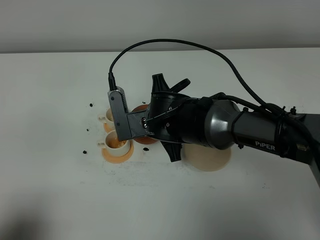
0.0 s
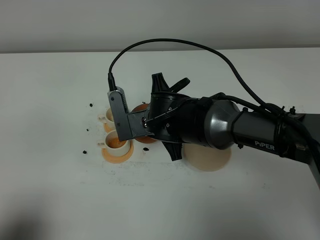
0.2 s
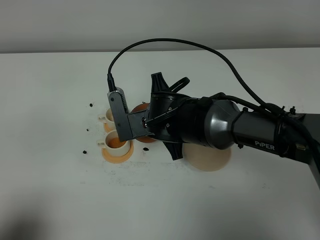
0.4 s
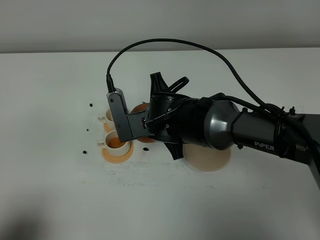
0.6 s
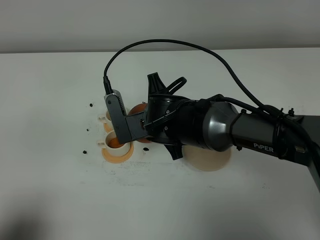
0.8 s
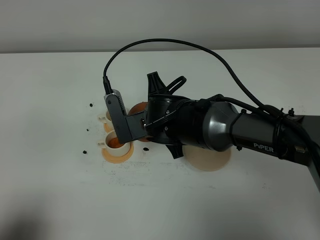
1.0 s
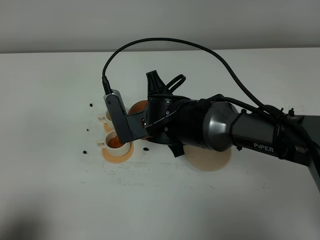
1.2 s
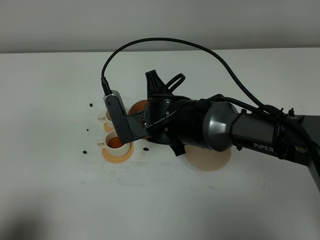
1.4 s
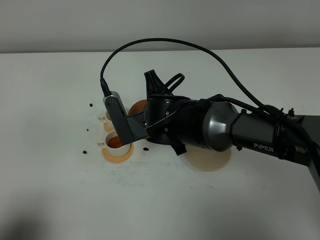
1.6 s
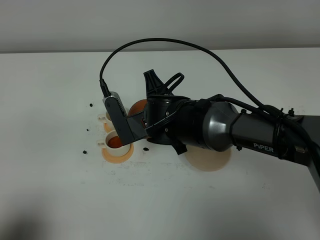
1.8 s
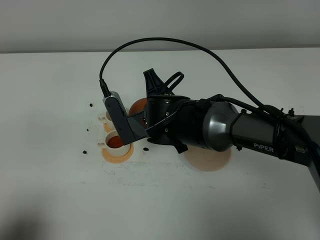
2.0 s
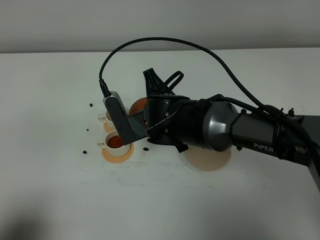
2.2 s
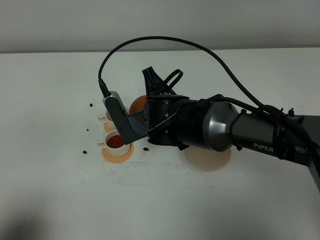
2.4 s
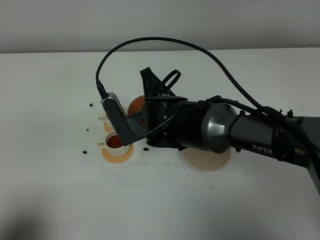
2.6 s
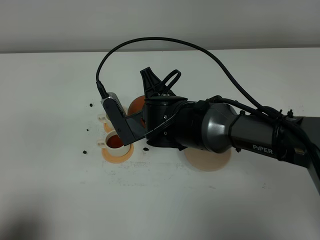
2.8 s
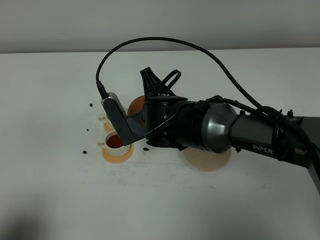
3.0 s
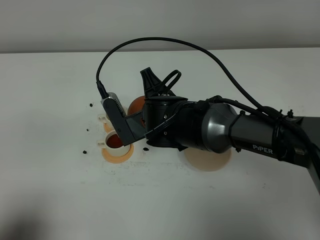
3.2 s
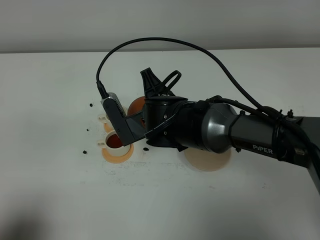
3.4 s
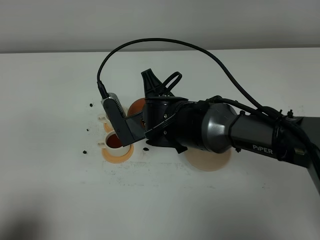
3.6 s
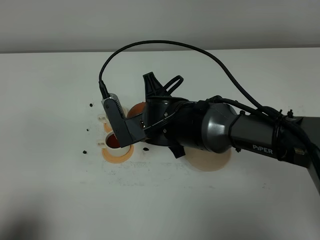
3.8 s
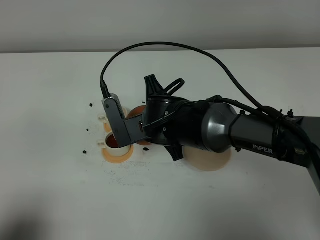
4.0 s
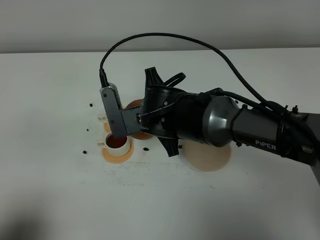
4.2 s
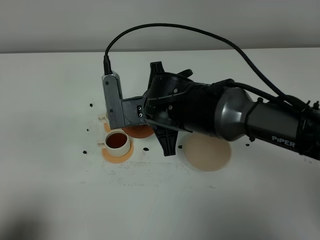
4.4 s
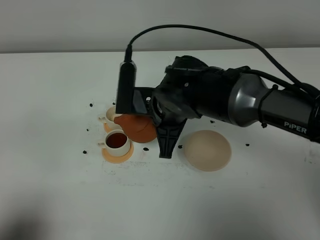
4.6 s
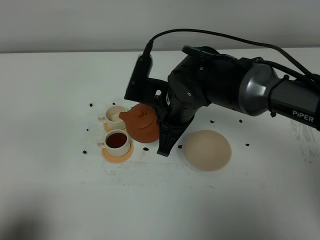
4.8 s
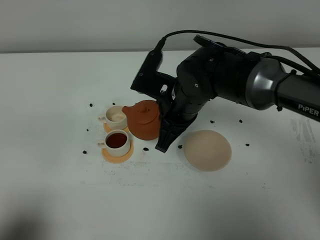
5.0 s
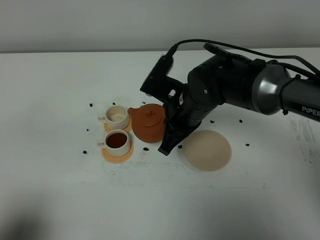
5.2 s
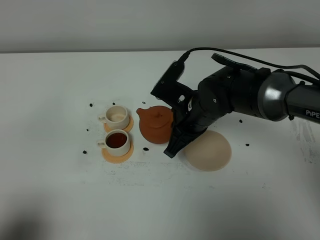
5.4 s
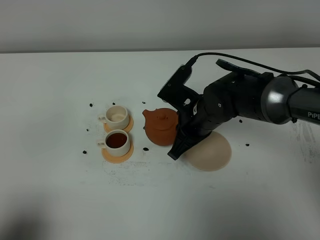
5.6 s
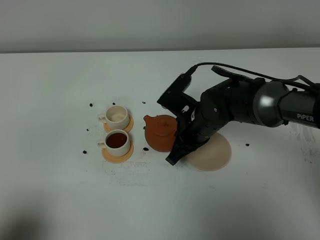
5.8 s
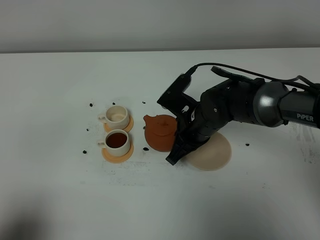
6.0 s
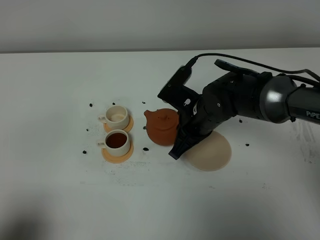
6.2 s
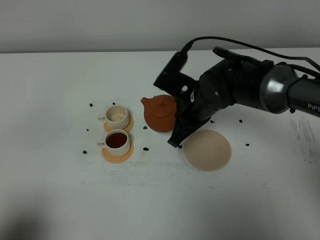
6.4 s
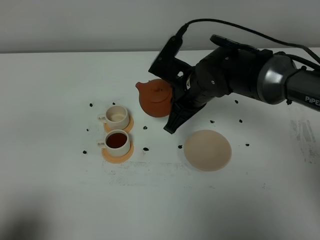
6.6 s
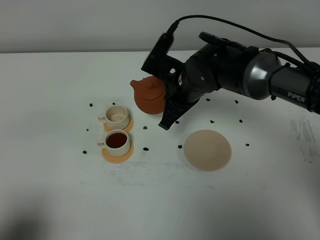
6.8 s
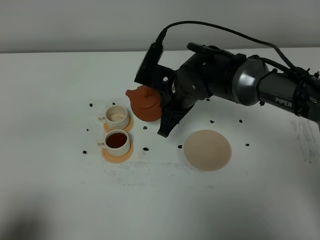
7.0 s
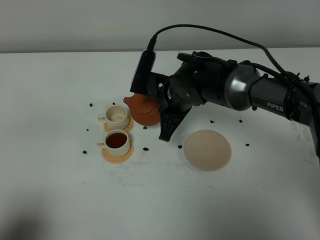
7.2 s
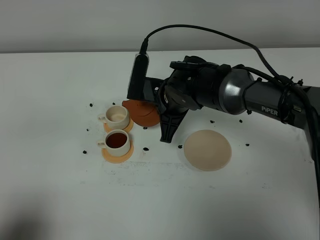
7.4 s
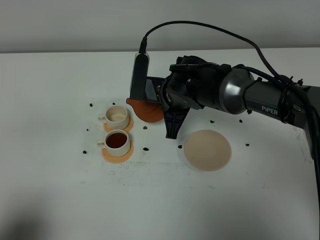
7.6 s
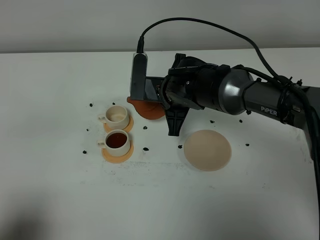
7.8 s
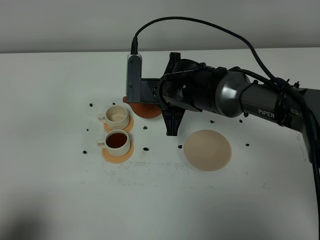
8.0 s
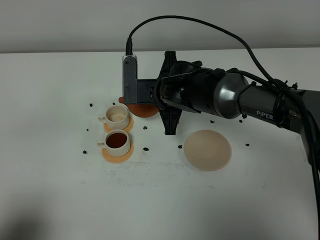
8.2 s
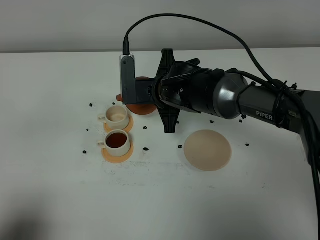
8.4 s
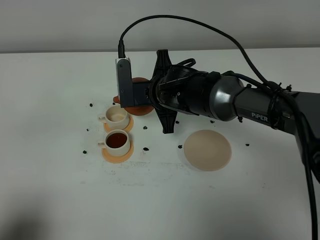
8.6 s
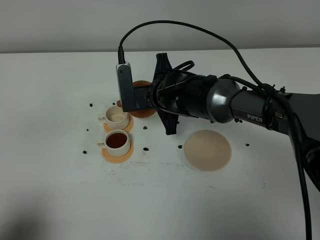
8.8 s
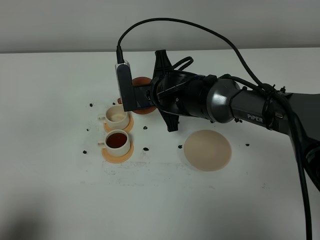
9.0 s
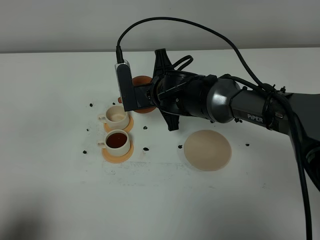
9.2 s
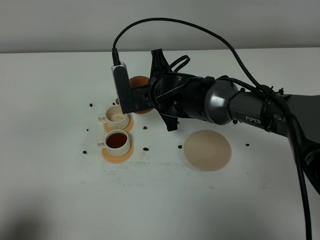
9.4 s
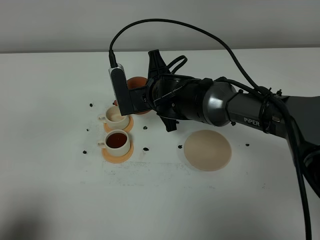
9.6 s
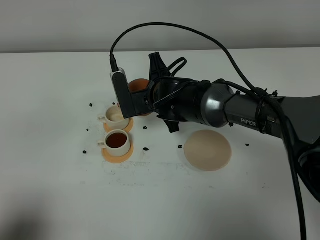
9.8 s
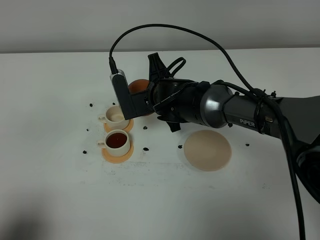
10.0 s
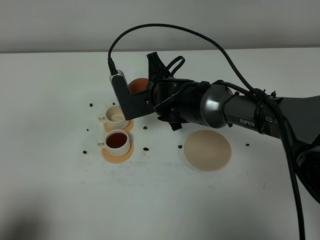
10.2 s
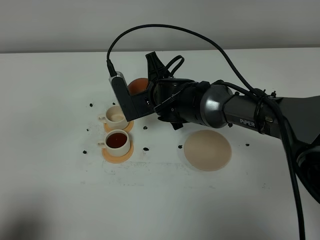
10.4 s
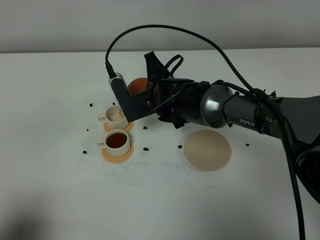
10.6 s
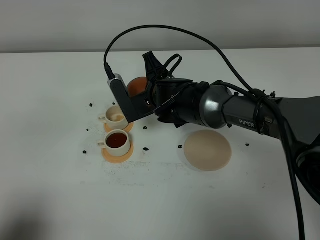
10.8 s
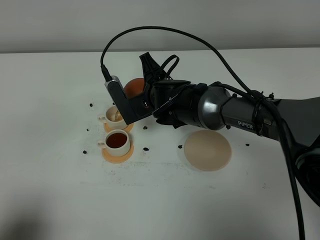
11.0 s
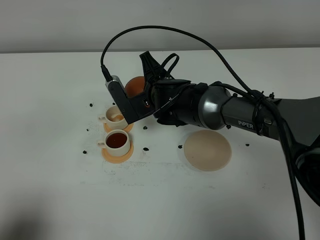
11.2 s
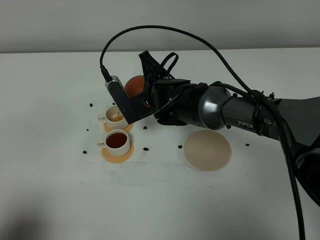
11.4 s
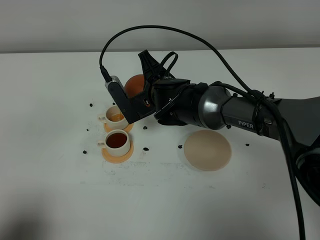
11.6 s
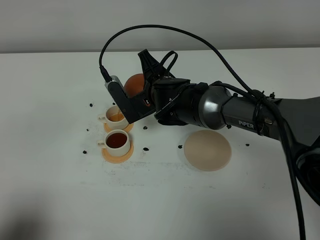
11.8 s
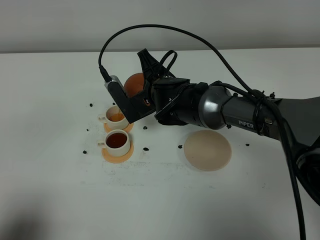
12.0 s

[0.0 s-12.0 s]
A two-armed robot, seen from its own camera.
Task of the whole recording: grasp the brown teapot and pour the tea into the two white teacups one by one, put the brown teapot back in its original place.
0.0 to 3.0 s: There are only small adjustments of the grippers.
4.4 to 6.0 s: The right gripper is displaced downward and to the right by roughly 10 cm.
6.0 to 7.6 s: The right gripper changes place by approximately 5 cm.
9.0 to 10.4 s: The grippers move only a little.
10.4 to 12.0 s: The grippers stay close to where they were, moving slightly.

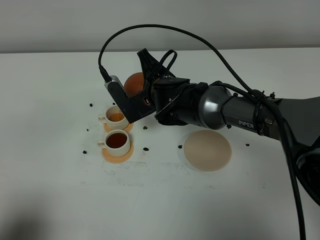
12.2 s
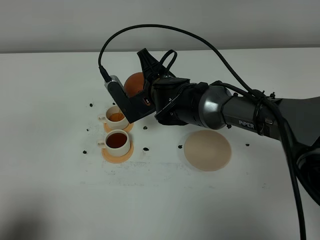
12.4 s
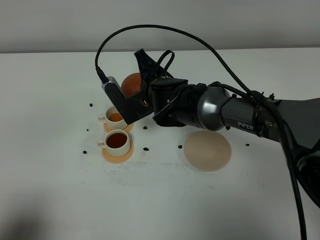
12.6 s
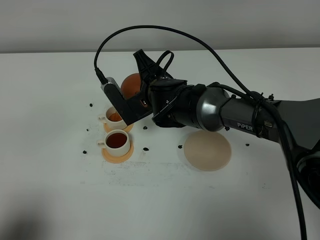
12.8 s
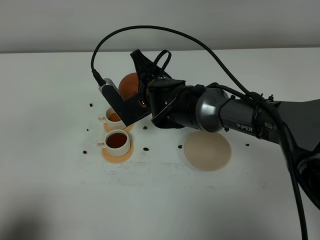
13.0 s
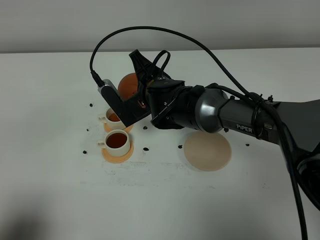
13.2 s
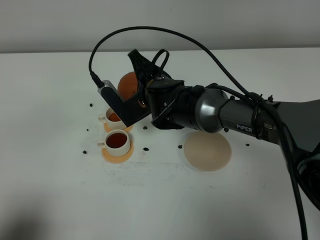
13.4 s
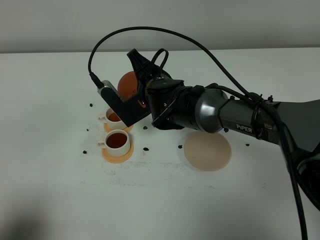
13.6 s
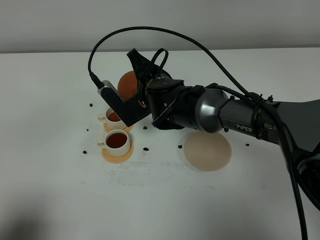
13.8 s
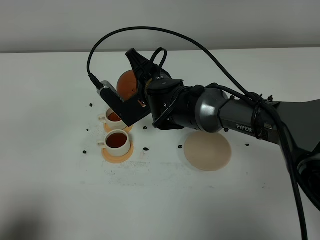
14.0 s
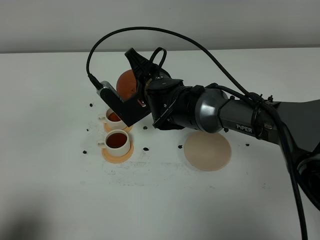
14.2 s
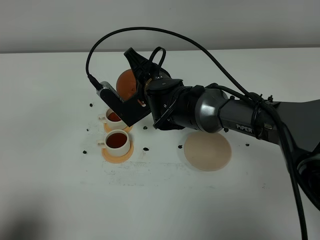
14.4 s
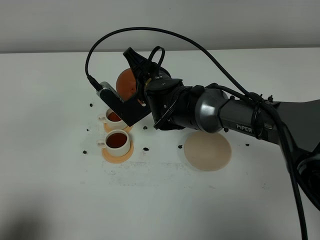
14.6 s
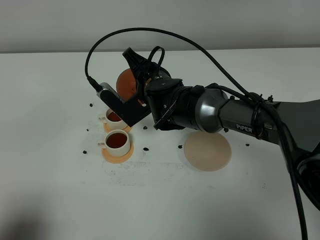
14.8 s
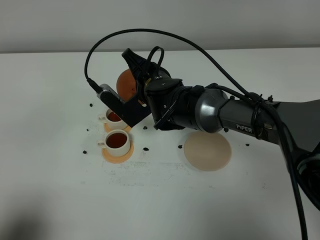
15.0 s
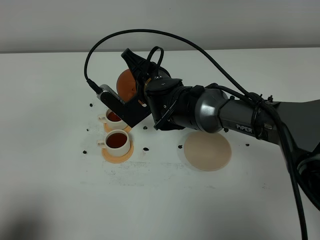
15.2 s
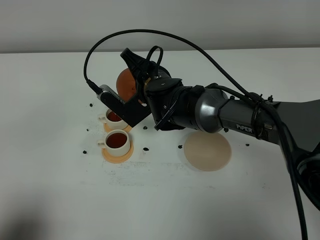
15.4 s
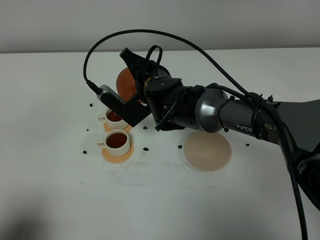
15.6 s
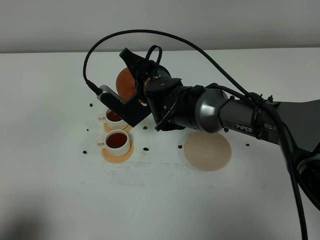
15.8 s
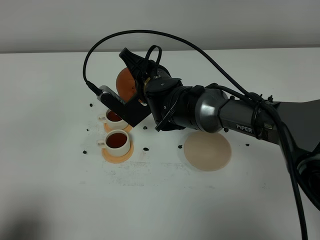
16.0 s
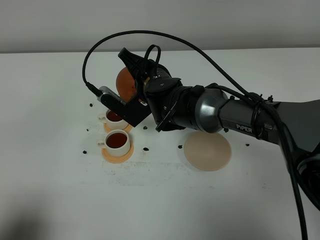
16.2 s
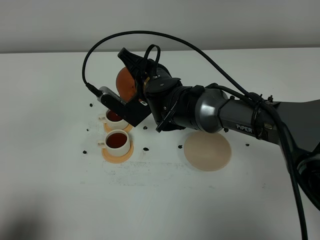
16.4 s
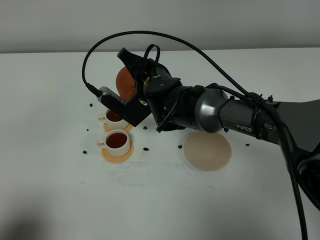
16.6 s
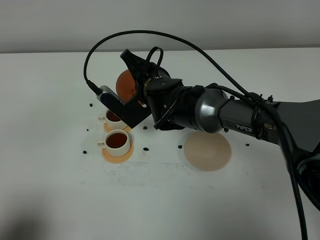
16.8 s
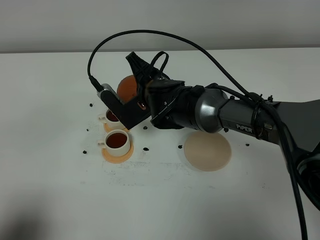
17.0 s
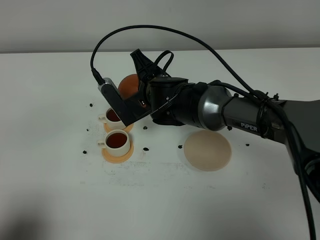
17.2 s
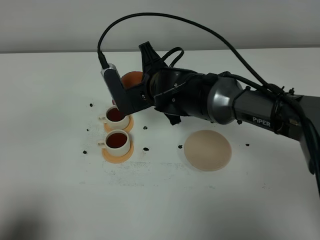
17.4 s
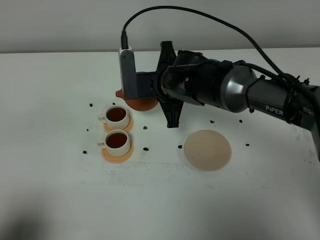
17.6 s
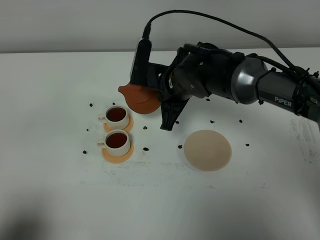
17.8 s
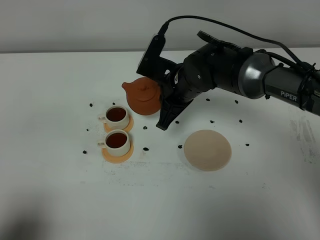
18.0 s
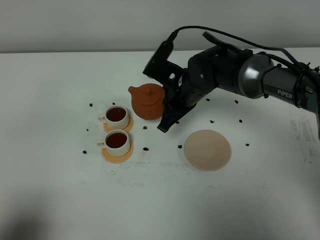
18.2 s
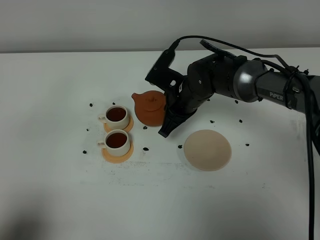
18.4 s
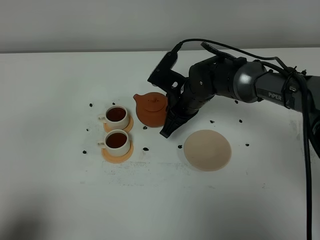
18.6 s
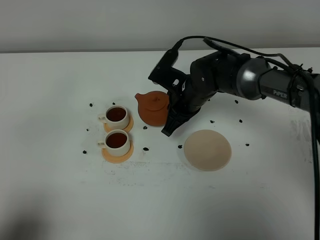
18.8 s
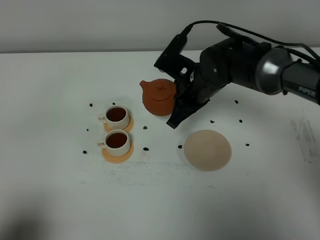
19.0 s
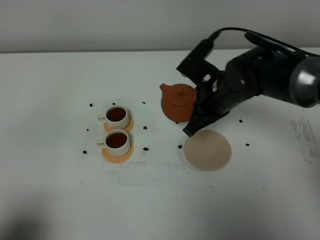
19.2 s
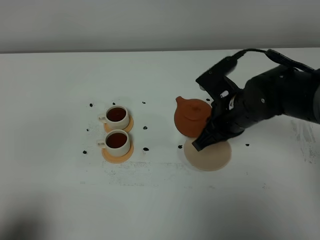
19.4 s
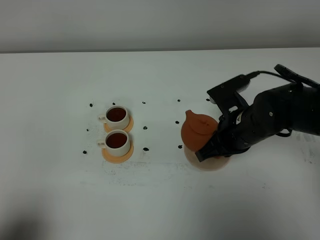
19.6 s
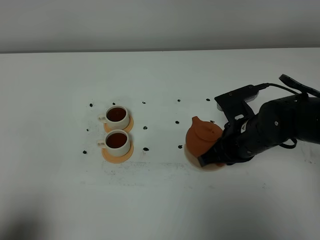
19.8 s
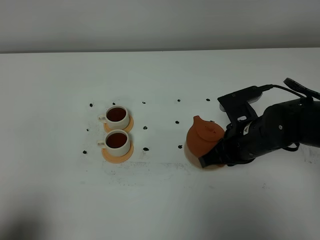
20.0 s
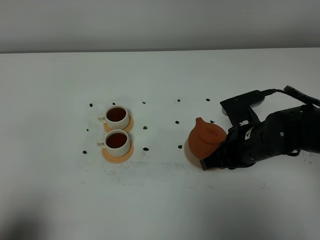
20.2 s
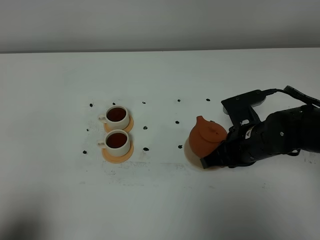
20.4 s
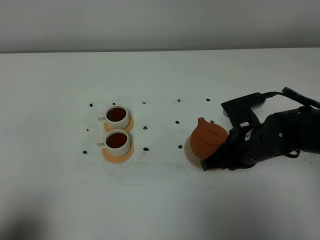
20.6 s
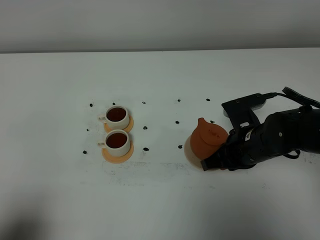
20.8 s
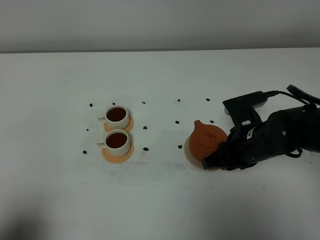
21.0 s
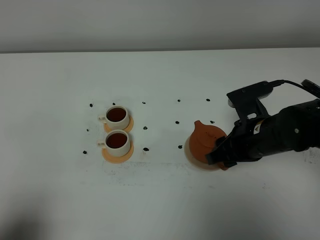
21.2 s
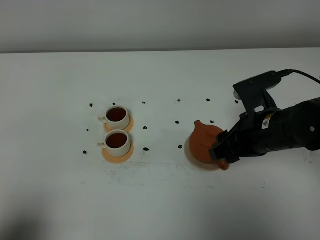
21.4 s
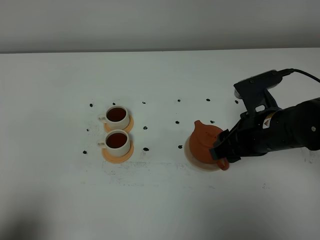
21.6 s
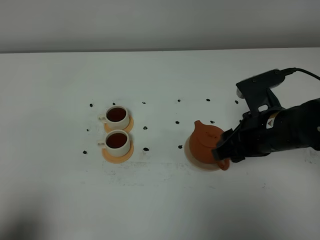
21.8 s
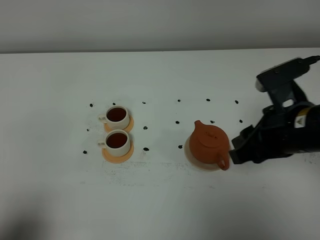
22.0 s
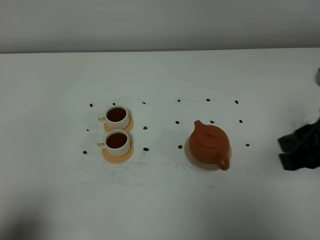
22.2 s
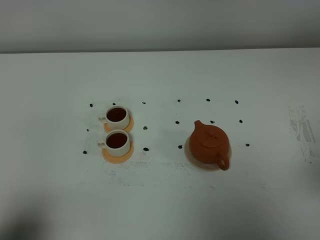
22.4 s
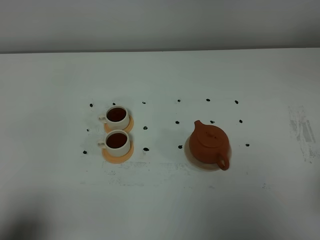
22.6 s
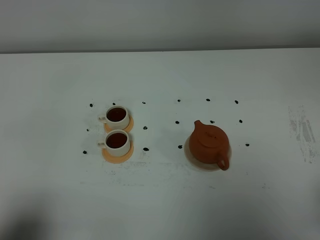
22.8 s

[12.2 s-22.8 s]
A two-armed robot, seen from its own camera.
Task of the whole recording: grasp the brown teapot and pour the tea into the two white teacups one by one, put the brown teapot back in its original place.
Step, 12.2 to 18.0 s: Pour tea into the teacup with the right gripper.
12.2 to 15.2 s: The grippers make only small movements.
15.2 to 16.8 s: The grippers move only a little.
16.8 to 18.2 s: The right gripper heads to the right, covering approximately 5 cm.
18.2 to 19.8 s: The right gripper goes roughly 15 cm backward and to the right.
19.8 to 21.2 s: The right gripper opens.
21.2 to 22.8 s: The right gripper moves backward, upward and to the right, about 30 cm, and closes its fingers.
